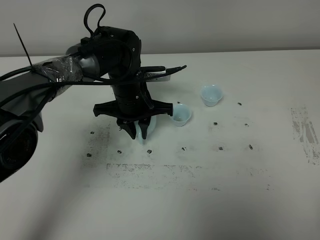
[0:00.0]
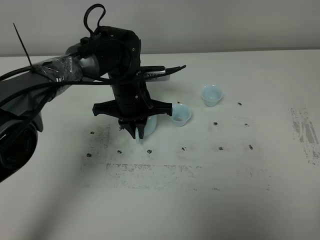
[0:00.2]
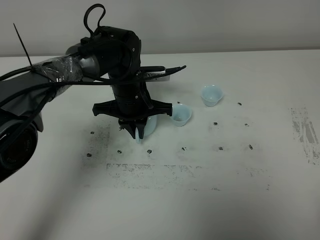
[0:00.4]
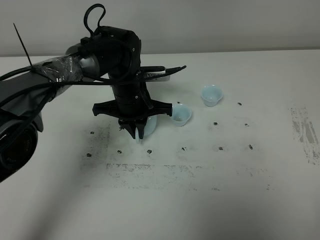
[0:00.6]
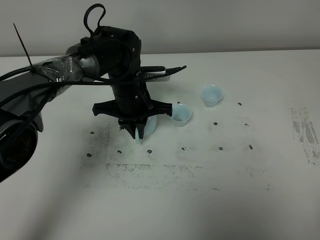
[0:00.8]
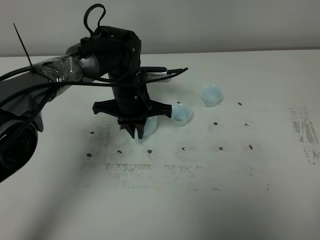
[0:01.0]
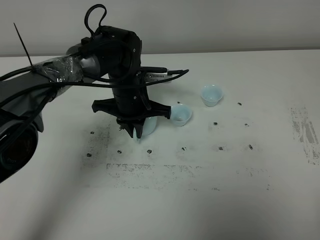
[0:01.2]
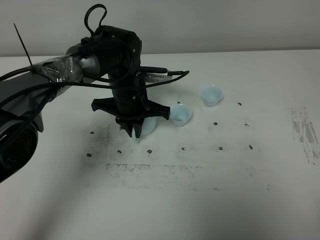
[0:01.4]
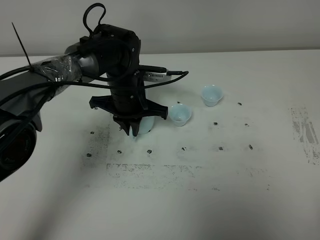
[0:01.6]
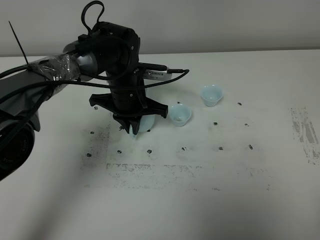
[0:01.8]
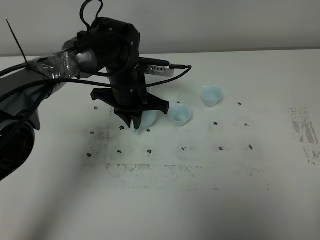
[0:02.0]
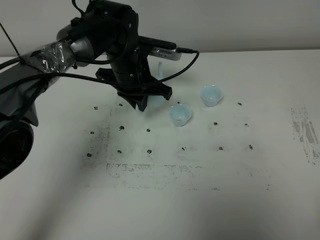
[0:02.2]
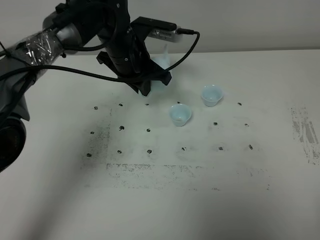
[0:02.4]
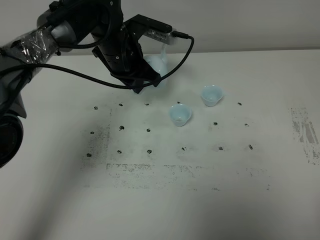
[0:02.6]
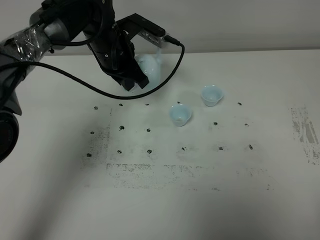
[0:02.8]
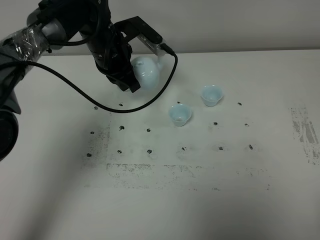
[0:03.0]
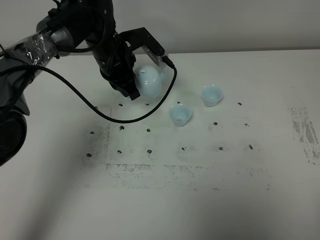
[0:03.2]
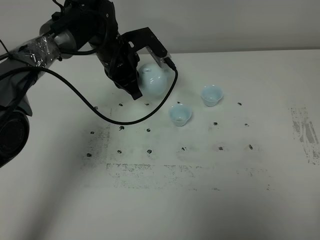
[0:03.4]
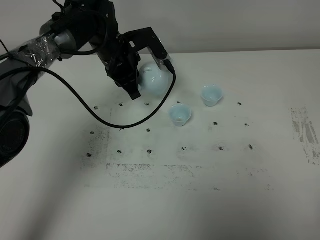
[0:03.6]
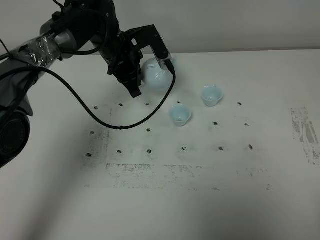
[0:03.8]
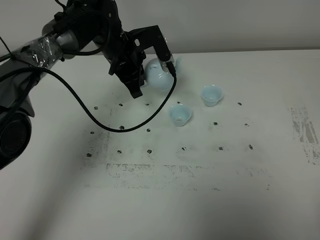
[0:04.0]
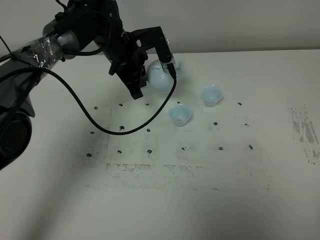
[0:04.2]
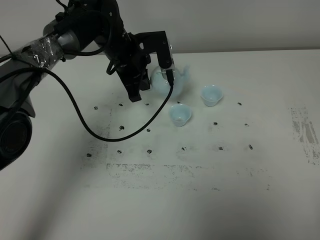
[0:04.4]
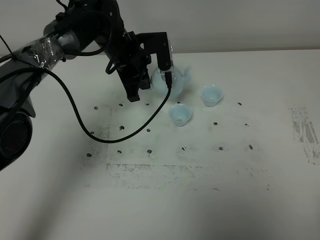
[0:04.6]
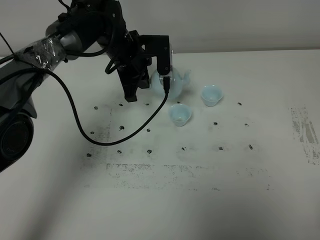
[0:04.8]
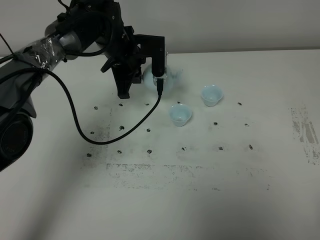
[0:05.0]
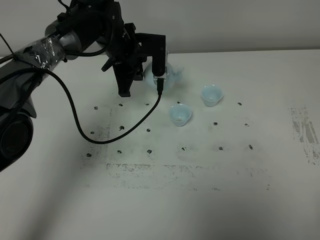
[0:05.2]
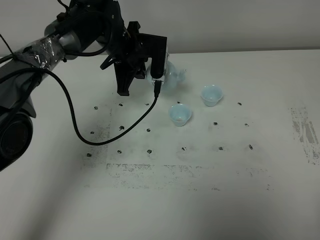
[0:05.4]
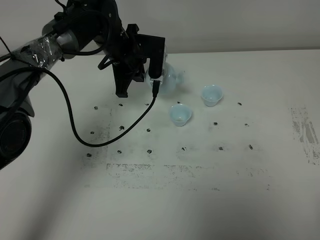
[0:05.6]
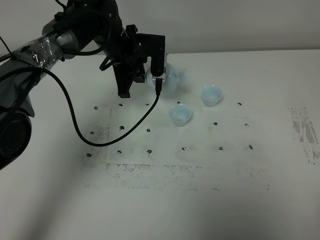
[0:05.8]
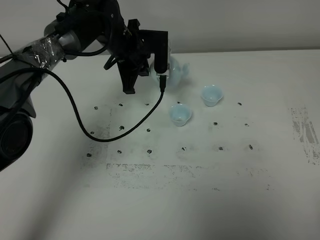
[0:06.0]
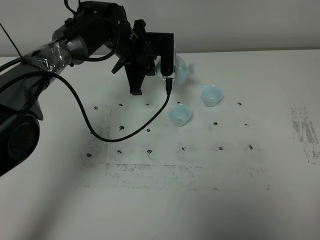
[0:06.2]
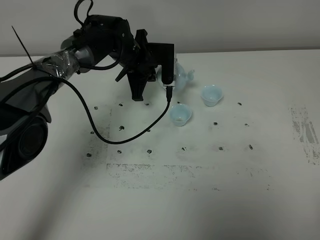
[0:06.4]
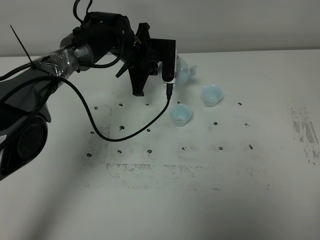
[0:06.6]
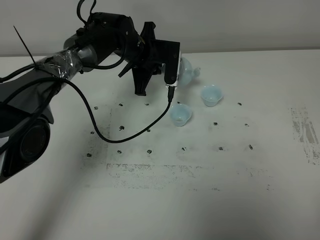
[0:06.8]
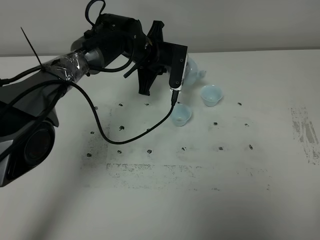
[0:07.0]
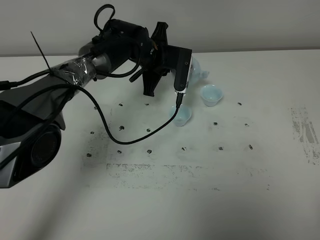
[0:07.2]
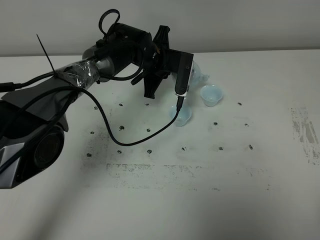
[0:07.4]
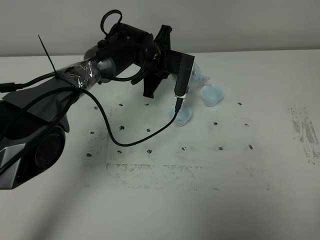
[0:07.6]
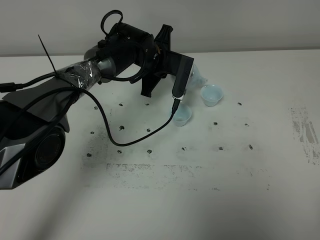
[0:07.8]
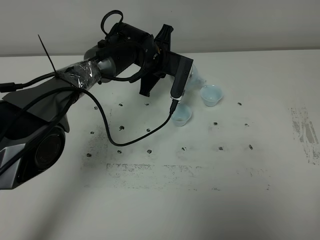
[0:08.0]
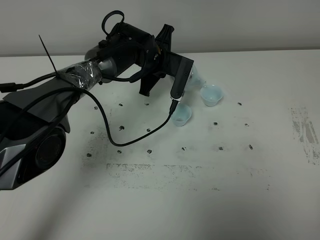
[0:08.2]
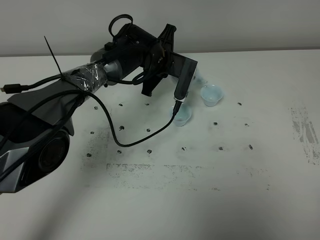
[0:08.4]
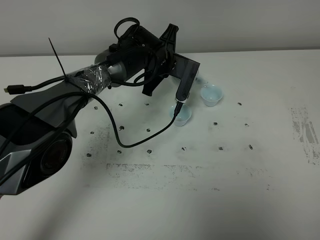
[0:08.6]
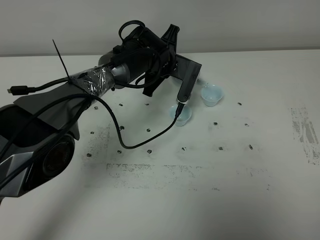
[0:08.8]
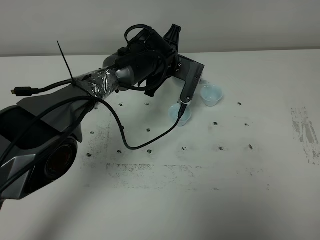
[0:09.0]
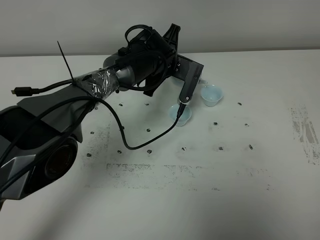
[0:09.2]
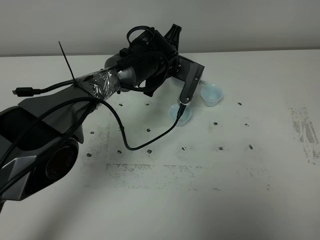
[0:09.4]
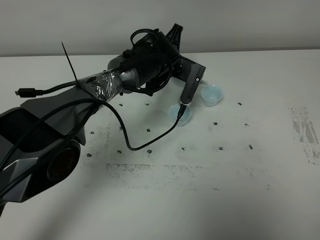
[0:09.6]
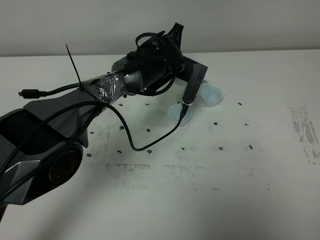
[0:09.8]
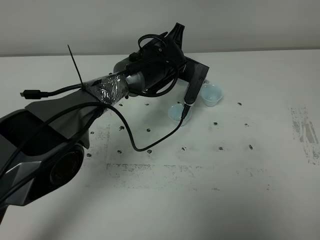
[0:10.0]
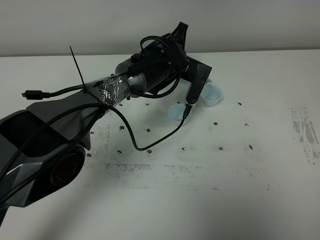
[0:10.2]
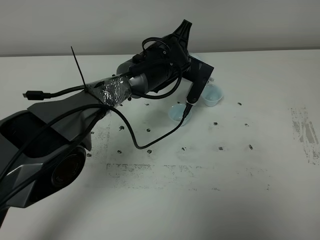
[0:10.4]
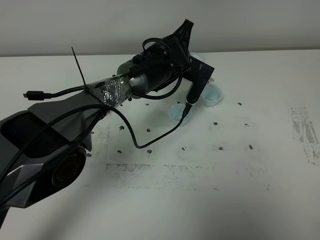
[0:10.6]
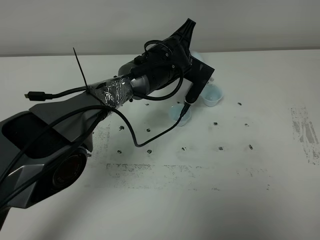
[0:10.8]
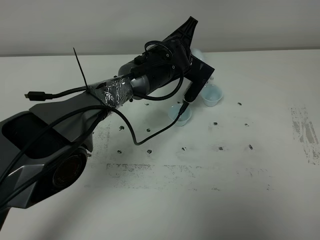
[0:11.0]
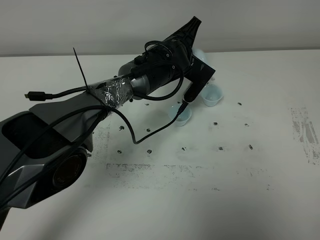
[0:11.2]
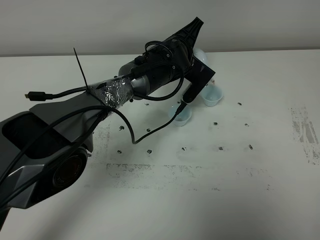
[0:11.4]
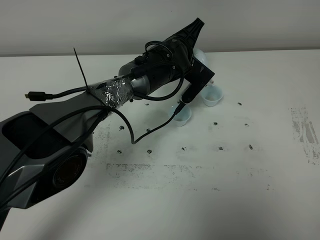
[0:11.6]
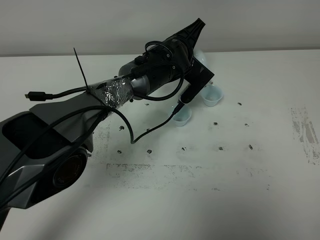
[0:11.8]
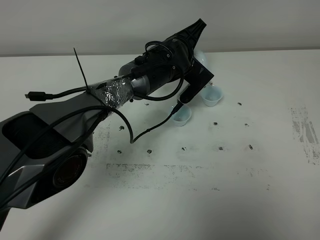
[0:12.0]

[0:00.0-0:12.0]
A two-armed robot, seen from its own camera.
Task of the whole recording: grasp the blue porcelain teapot and pour the tea into the two blue porcelain teacups one by one, put the blue porcelain teapot back in its original place.
Step, 0:00.0 to 0:02.0: Pick up the teapot with the left gripper.
0:00.0 to 0:01.6: There are only small adjustments of the grippers.
0:01.6 to 0:03.0: The left gripper goes approximately 5 cm upward.
0:04.4 to 0:06.0: The grippers make only small movements.
0:06.0 to 0:07.6: The left gripper goes some 5 cm to the right.
0:07.6 to 0:09.0: There are only small adjustments of the grippers.
0:09.0 to 0:10.4: The grippers make only small movements.
0:10.4 to 0:12.0: The grippers move only a little.

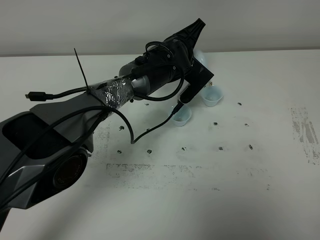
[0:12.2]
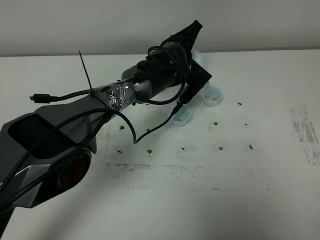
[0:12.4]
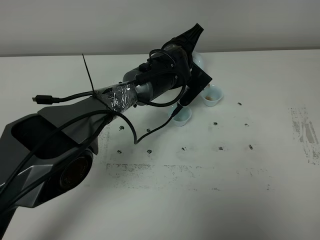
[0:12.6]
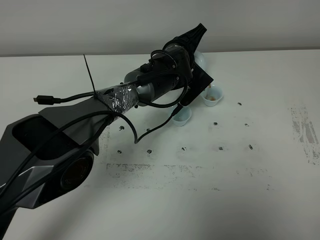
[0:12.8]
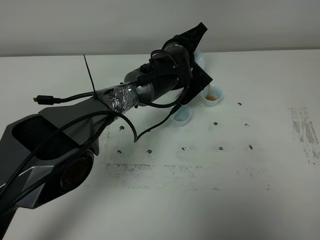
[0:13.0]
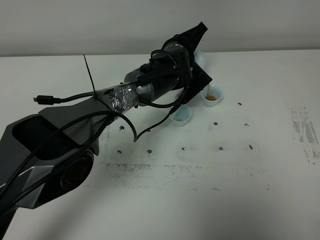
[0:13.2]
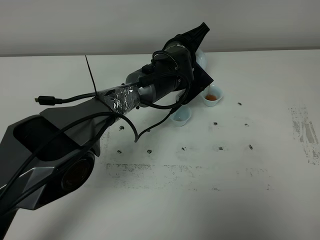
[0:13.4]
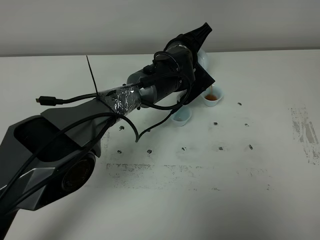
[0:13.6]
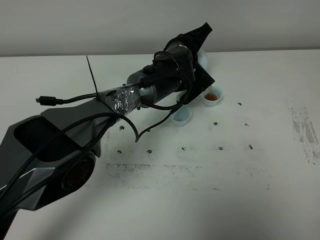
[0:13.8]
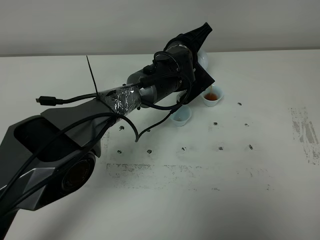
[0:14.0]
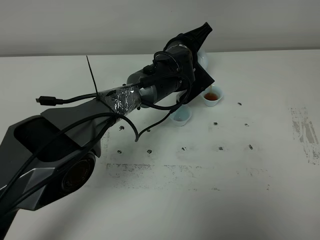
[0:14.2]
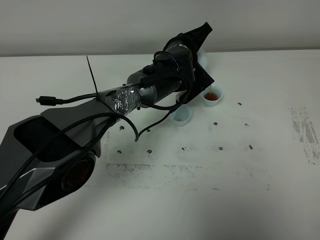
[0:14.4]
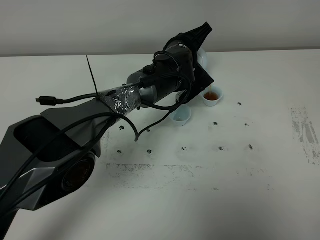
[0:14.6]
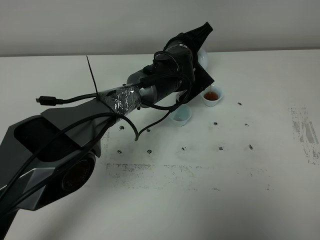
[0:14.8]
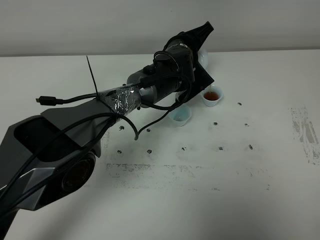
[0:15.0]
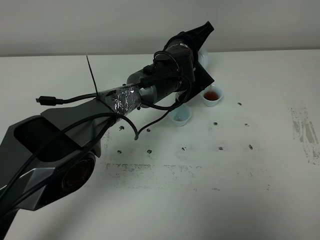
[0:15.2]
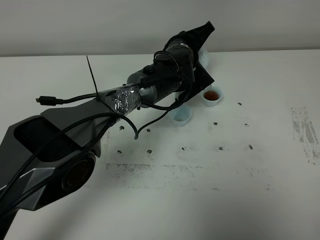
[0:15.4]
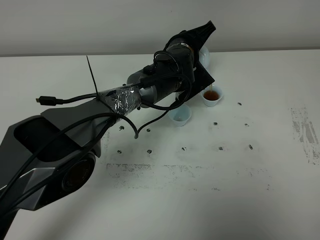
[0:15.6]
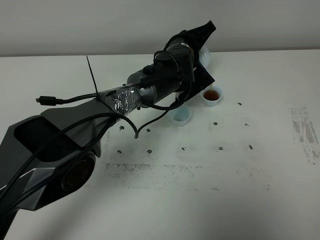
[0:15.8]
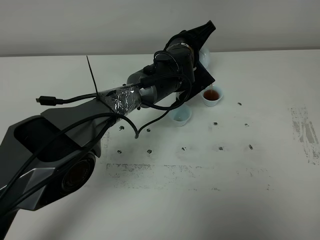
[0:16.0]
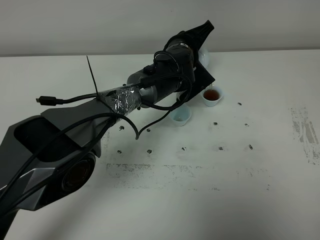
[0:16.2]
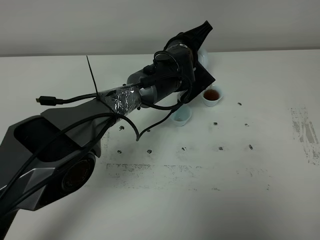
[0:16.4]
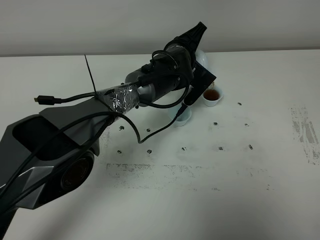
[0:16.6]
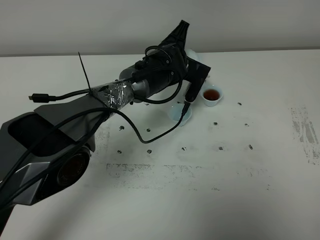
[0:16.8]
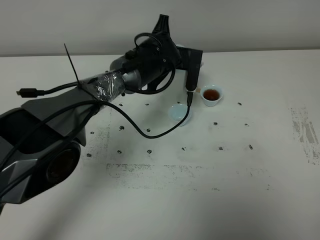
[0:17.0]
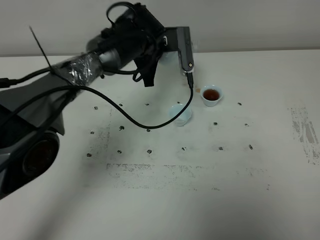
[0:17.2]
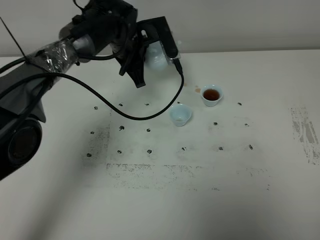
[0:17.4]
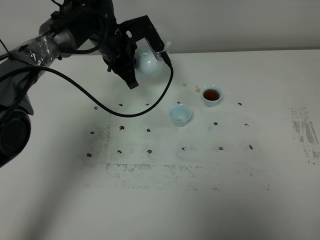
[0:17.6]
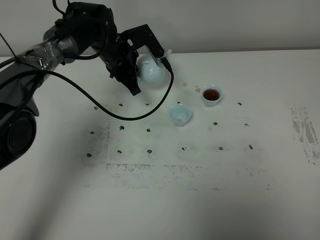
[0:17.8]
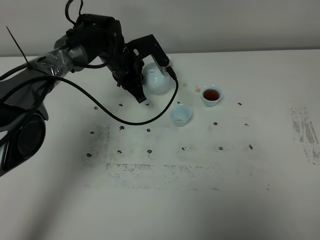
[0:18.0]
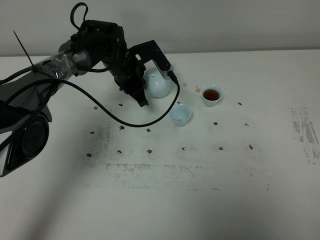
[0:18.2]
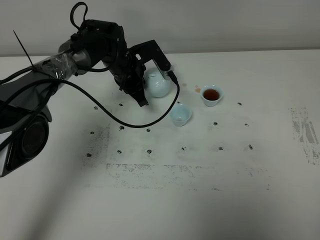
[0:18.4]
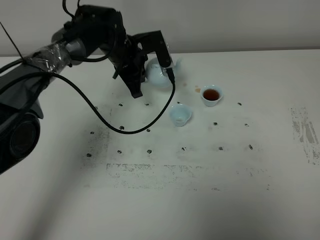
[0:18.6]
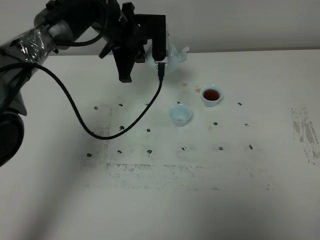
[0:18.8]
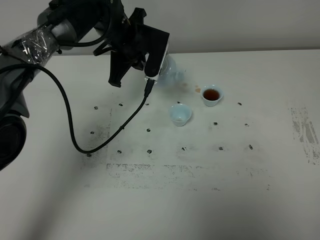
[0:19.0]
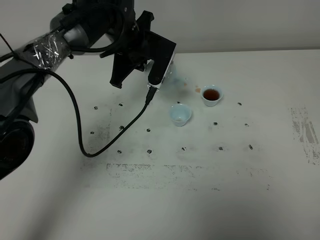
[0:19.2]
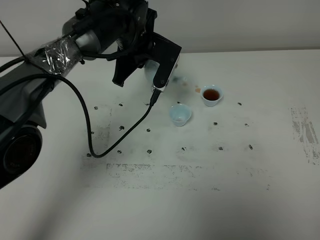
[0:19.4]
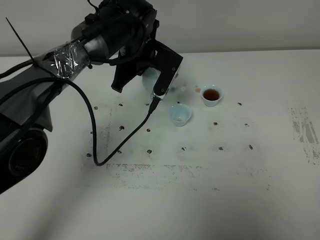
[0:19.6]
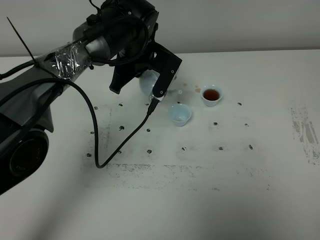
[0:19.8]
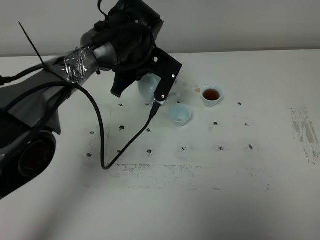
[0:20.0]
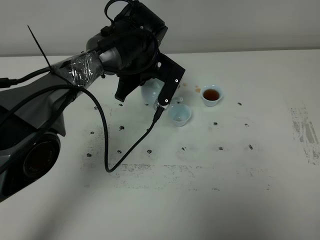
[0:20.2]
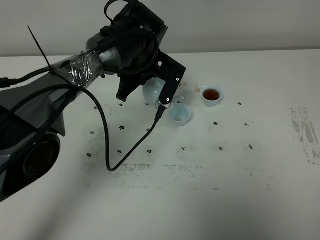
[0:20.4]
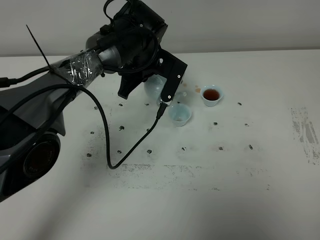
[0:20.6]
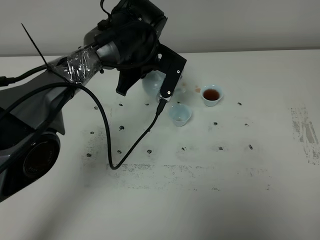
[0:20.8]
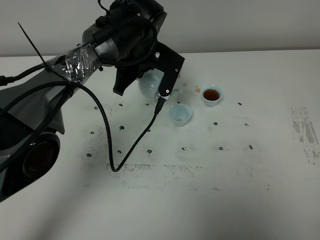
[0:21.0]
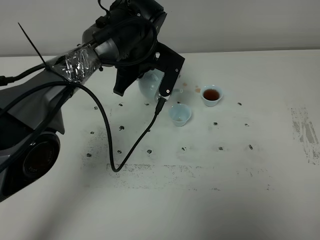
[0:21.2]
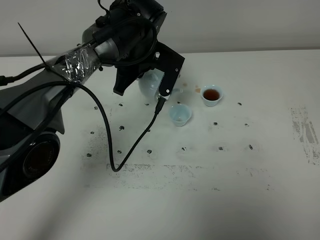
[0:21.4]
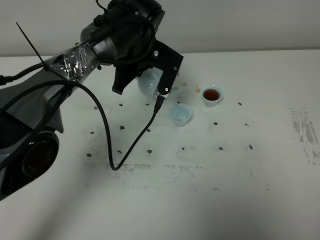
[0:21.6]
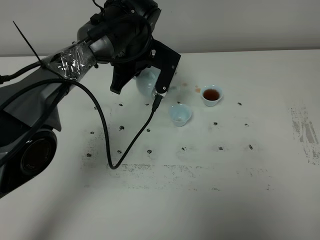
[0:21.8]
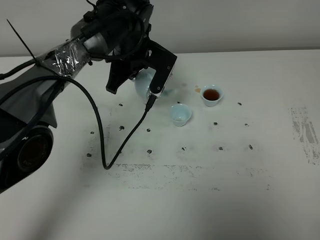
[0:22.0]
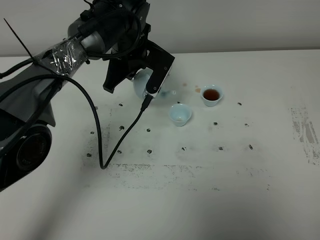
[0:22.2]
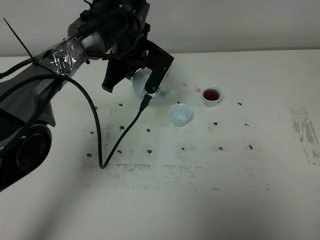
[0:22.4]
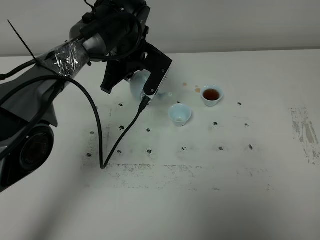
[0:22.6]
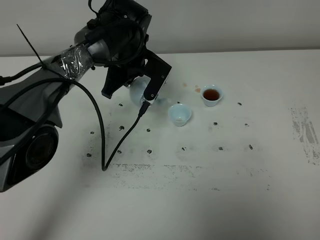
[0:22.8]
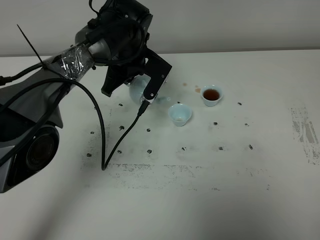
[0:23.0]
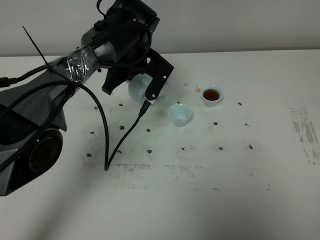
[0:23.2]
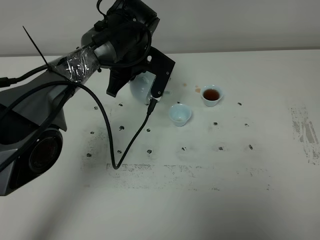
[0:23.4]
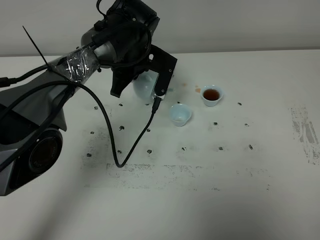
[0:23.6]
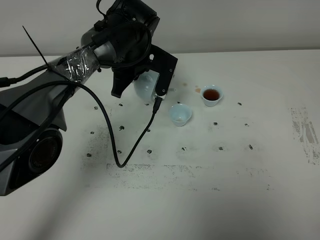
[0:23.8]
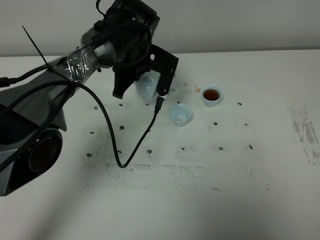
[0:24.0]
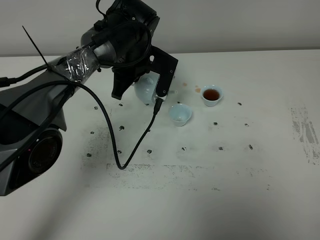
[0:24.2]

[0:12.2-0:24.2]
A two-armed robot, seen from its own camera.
Task of the whole recording: grasp the blue porcelain teapot and pour the tea into the two blue porcelain teacups one by one, put the blue porcelain teapot back in its original place.
0:12.2 to 0:13.8: The grippers stay close to where they were, moving slightly.
0:13.8 to 0:15.2: The two grippers keep their place.
0:15.2 to 0:16.6: There are only small adjustments of the grippers.
0:16.6 to 0:18.2: The left gripper goes some 10 cm to the left.
0:18.2 to 0:19.8: The left gripper is displaced upward and backward by approximately 10 cm.
0:19.8 to 0:24.2: There are only small adjustments of the grippers.
